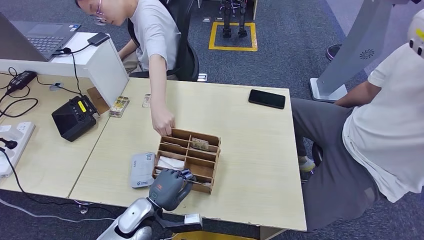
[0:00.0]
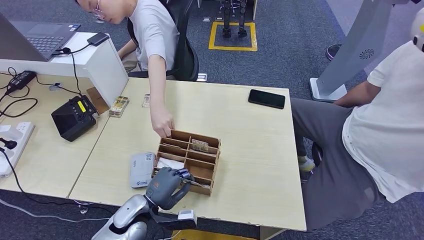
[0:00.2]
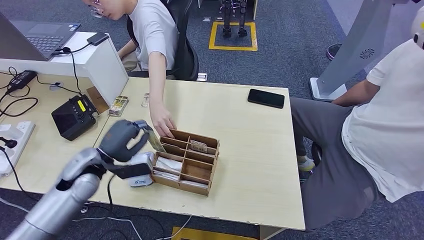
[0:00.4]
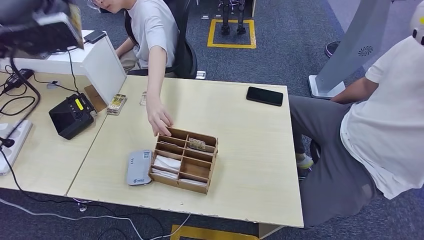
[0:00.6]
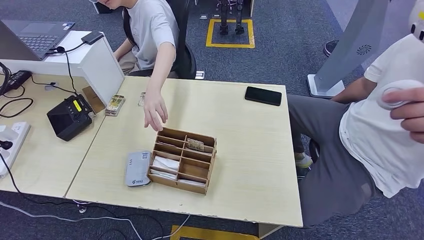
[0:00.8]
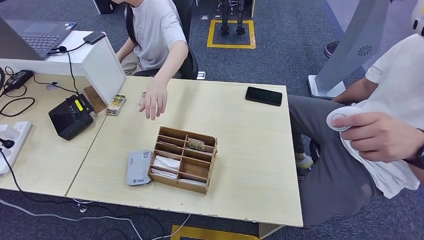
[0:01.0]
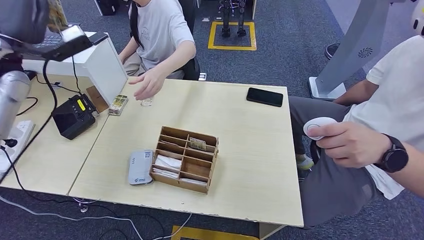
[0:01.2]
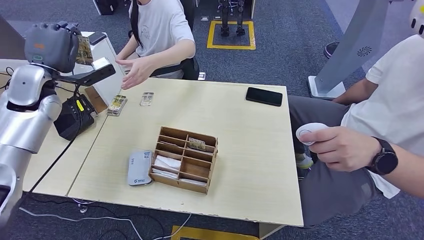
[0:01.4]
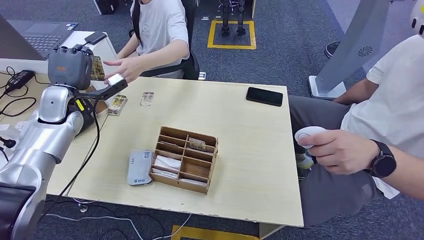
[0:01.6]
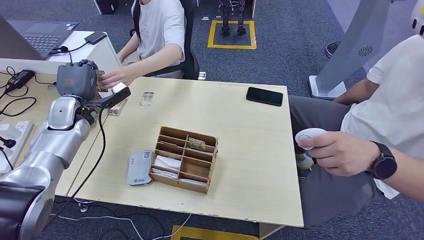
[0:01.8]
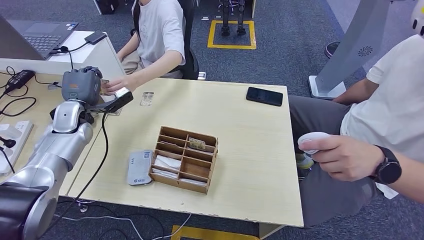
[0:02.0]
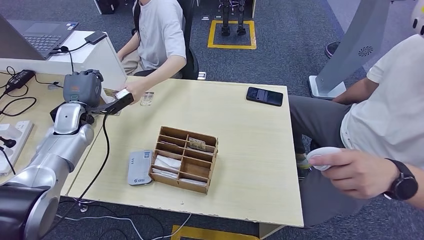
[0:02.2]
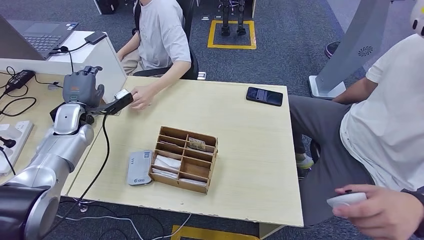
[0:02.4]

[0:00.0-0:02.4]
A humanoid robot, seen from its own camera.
Step, 0:00.2 to 0:02.4: Hand the room key to the person.
